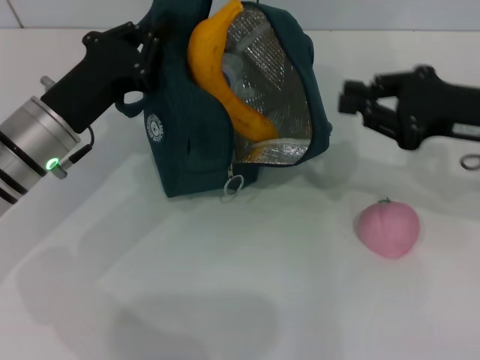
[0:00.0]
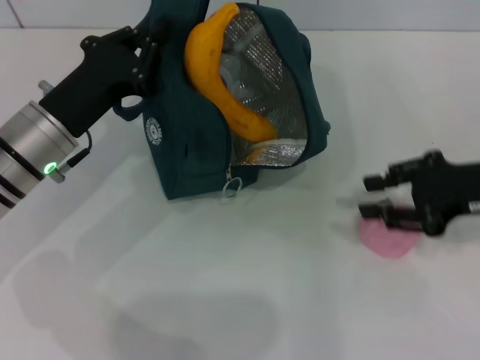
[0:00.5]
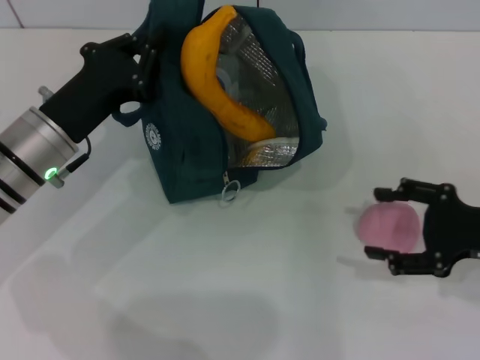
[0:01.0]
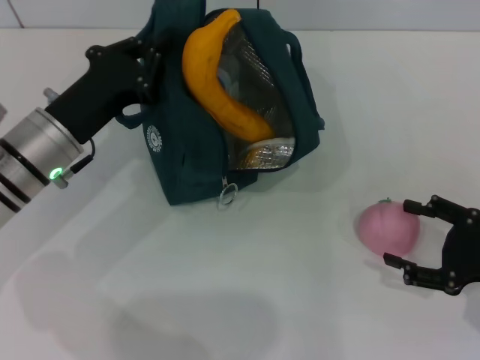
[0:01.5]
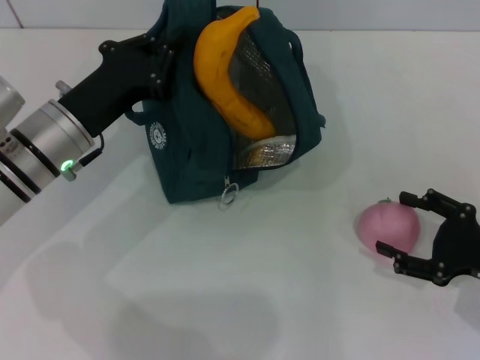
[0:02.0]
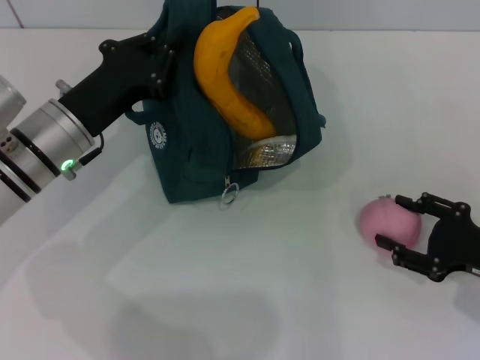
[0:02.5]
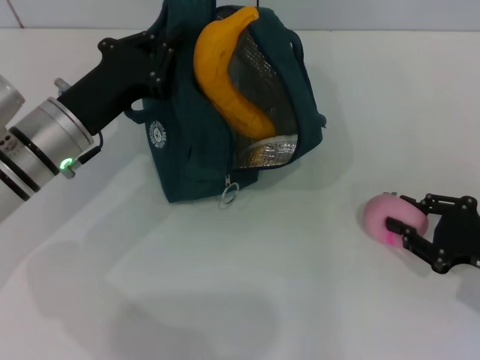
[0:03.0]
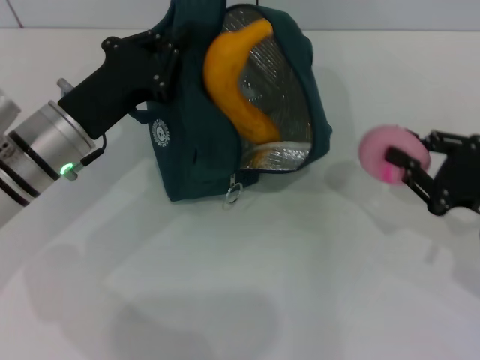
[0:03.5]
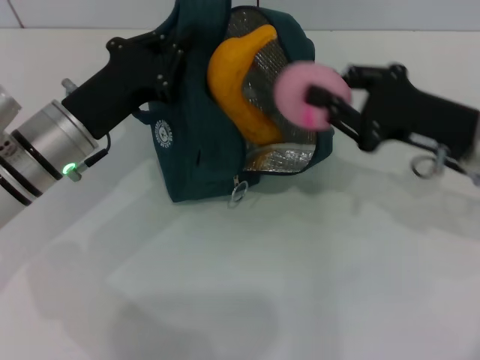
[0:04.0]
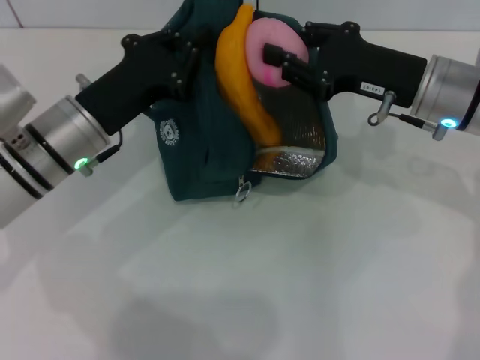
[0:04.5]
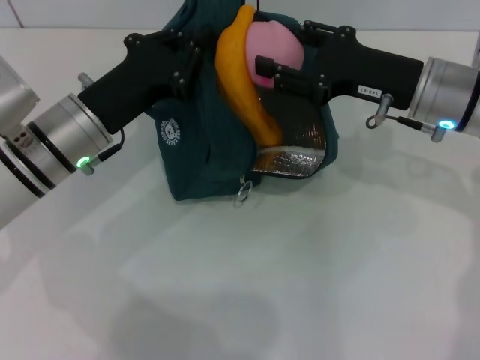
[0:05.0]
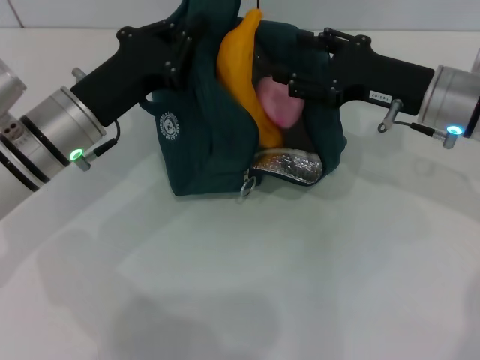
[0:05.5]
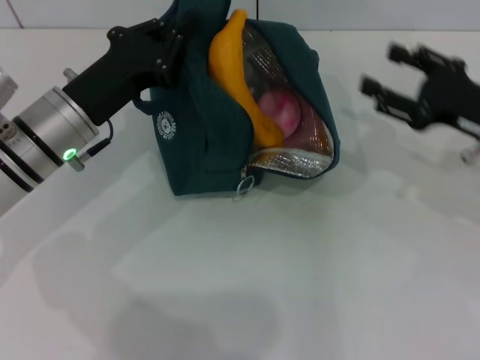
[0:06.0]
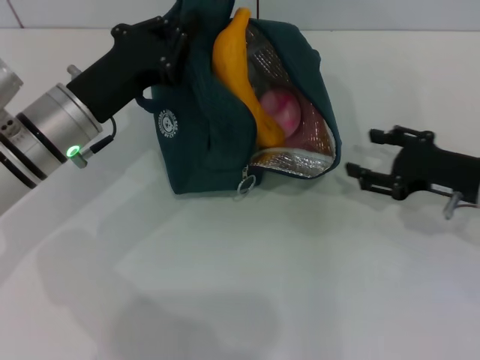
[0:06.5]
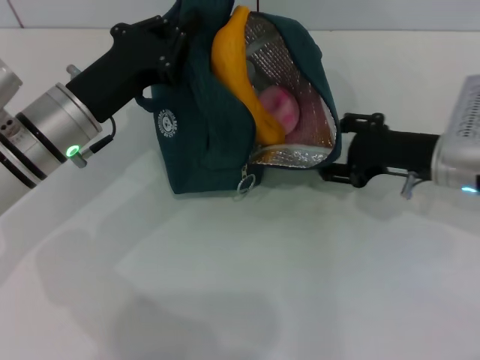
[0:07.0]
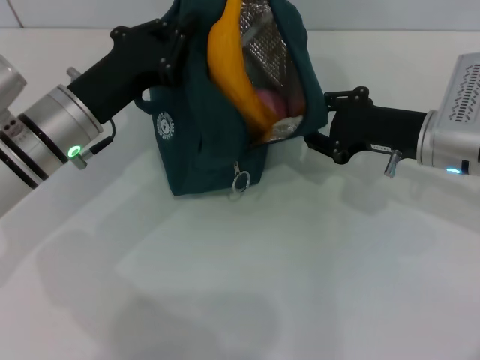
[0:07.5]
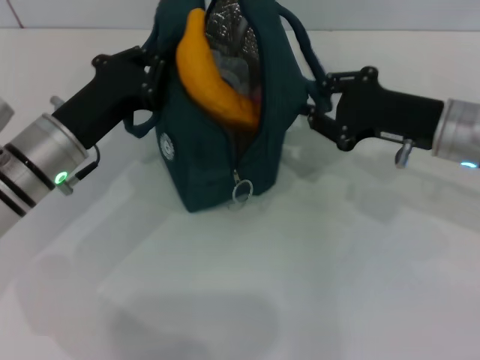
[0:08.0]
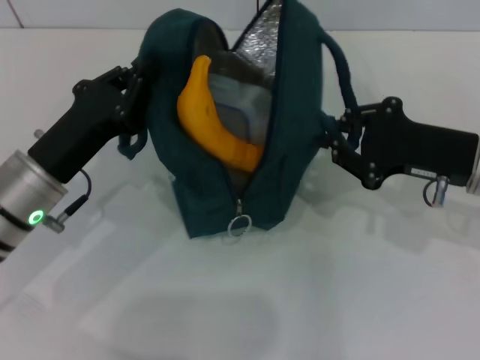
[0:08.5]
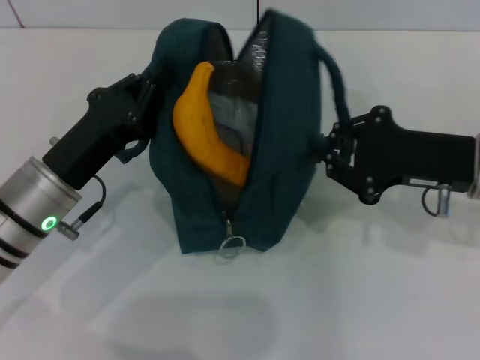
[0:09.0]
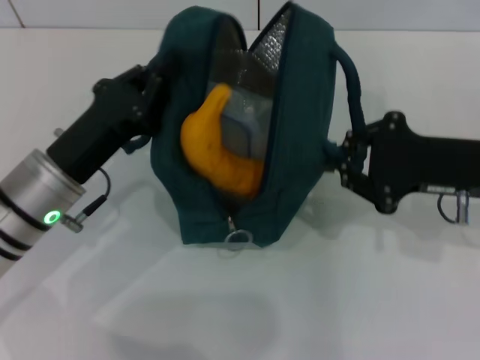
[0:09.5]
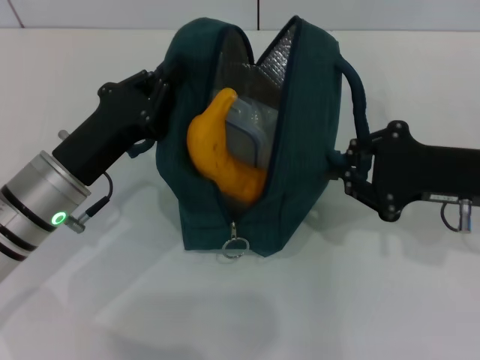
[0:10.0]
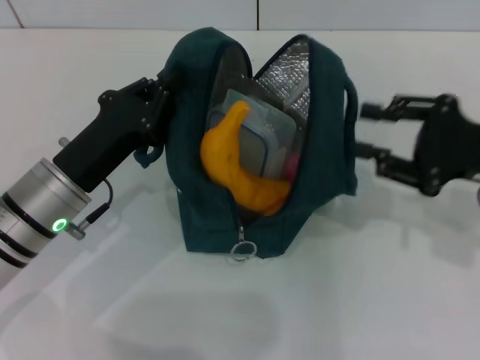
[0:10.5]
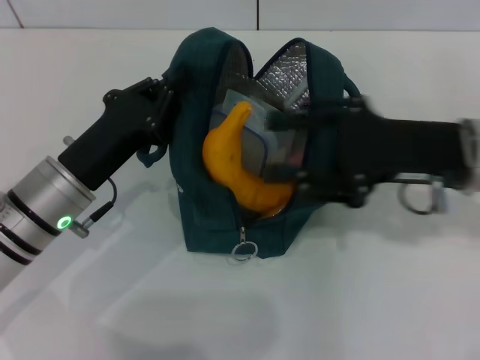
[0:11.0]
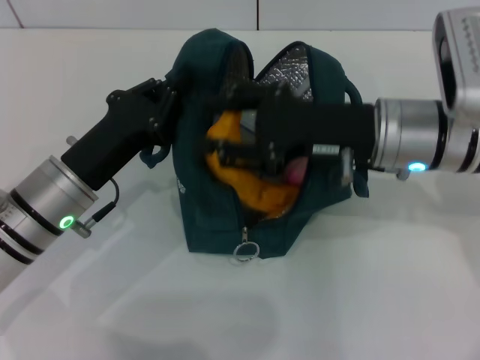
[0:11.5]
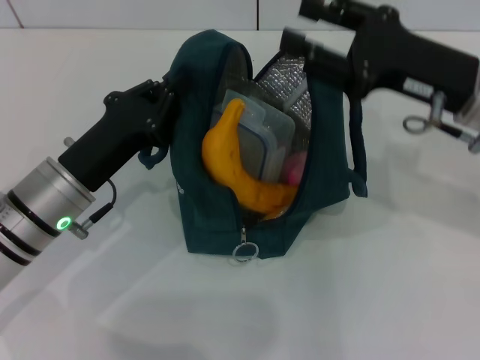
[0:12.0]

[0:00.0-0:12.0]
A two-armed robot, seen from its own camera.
Step, 0:00.0 to 0:03.0: Grab the peach with your right hand.
Step, 0:06.0 to 0:10.5: Hold the lunch bag with your right hand.
0:00.0 to 0:02.0: The right gripper goes about 15 cm downward, backward and to the right, and opens up.
0:02.0 to 0:04.0: The right gripper goes roughly 15 cm forward, upward and to the left, and closes its fingers.
0:04.0 to 0:06.0: The right gripper ends up roughly 5 cm from where it was, and opens up.
0:06.0 to 0:08.0: The right gripper travels to the left by some 5 cm, and closes up.
0:08.0 to 0:10.0: The right gripper travels backward by roughly 5 cm.
0:10.0 to 0:12.0: The right gripper moves about 10 cm to the left and comes back, and opens its fingers.

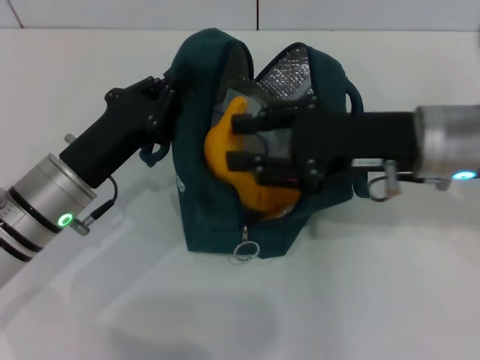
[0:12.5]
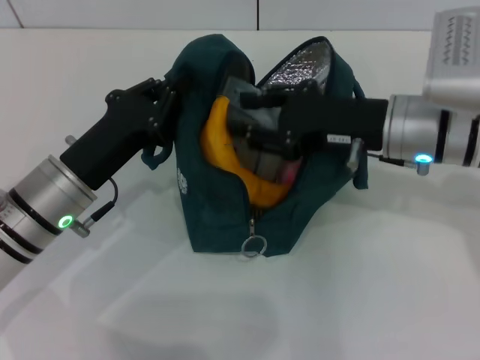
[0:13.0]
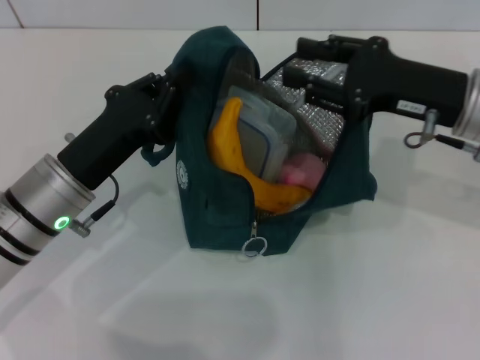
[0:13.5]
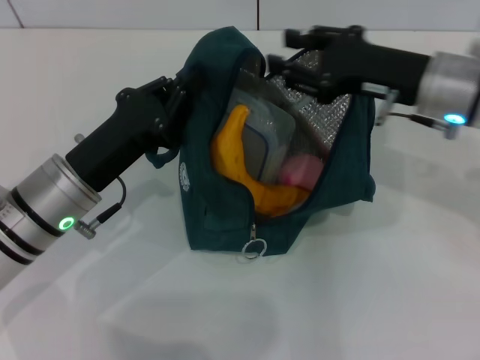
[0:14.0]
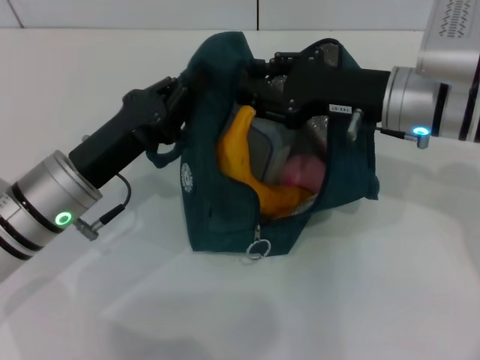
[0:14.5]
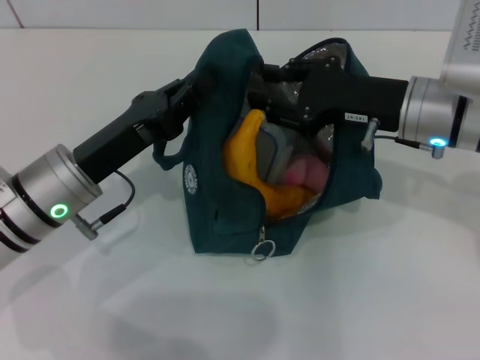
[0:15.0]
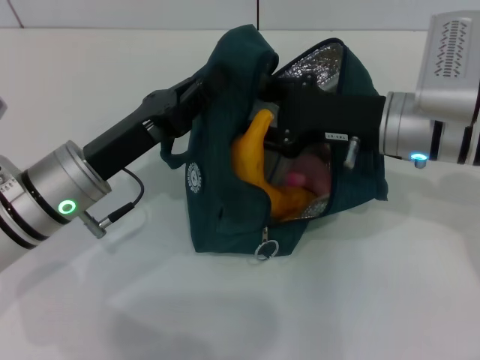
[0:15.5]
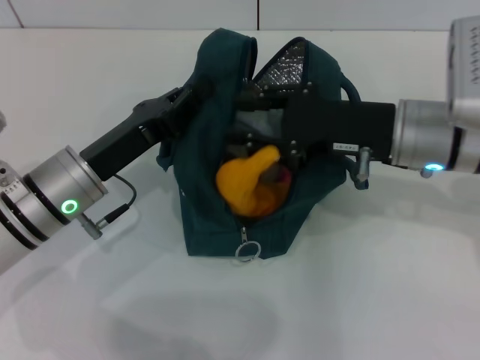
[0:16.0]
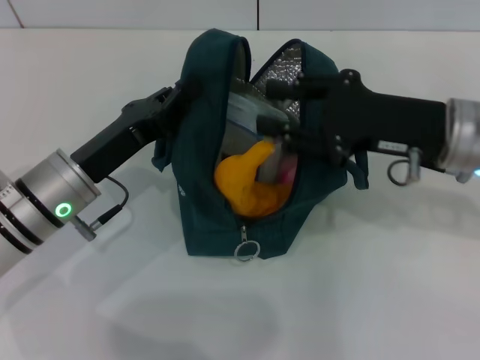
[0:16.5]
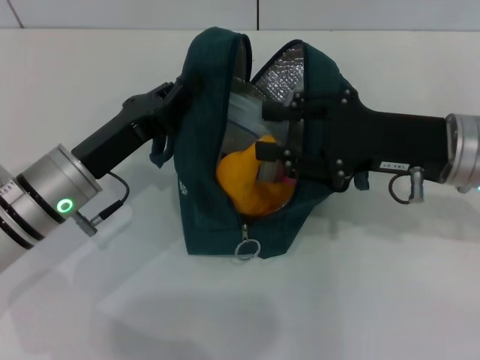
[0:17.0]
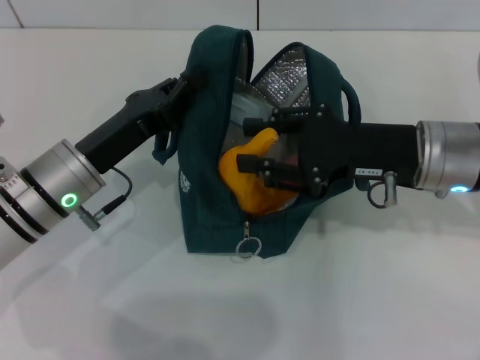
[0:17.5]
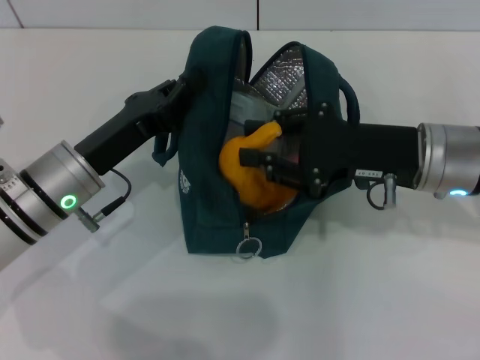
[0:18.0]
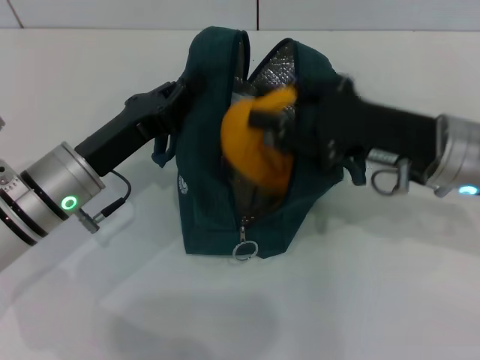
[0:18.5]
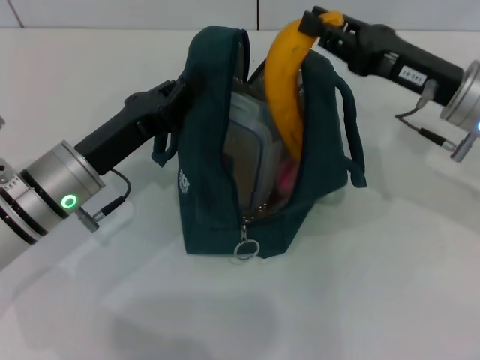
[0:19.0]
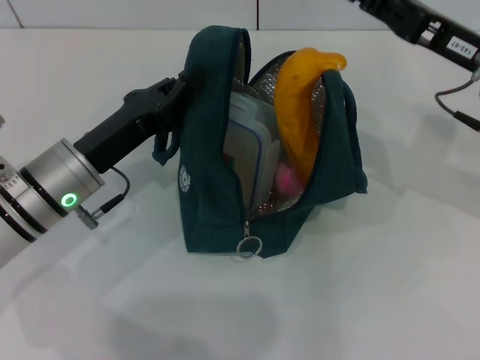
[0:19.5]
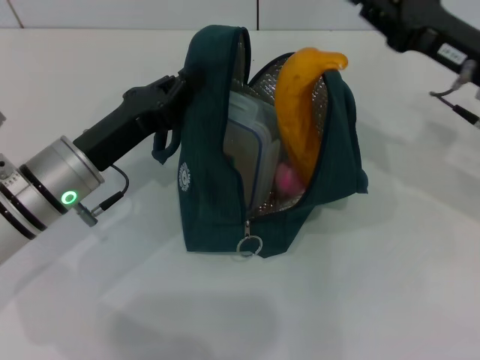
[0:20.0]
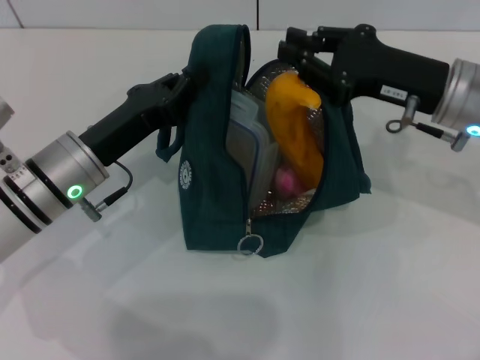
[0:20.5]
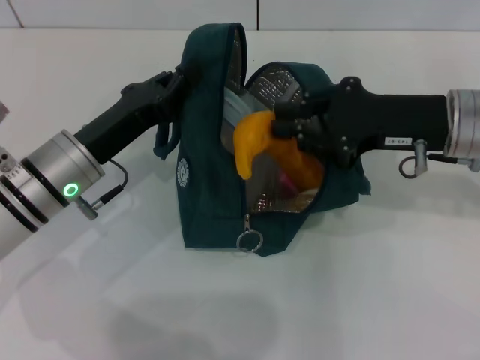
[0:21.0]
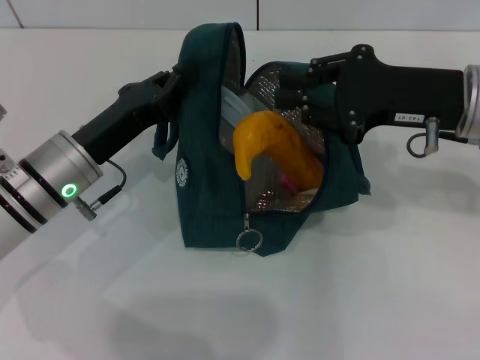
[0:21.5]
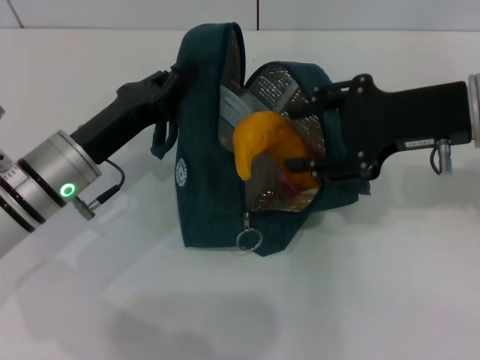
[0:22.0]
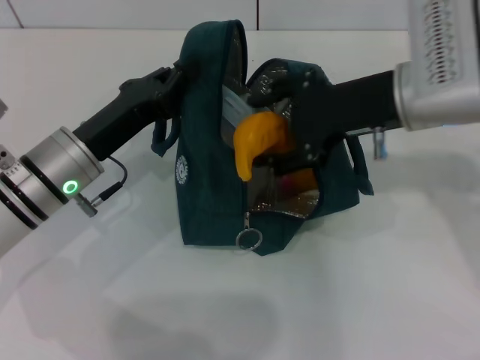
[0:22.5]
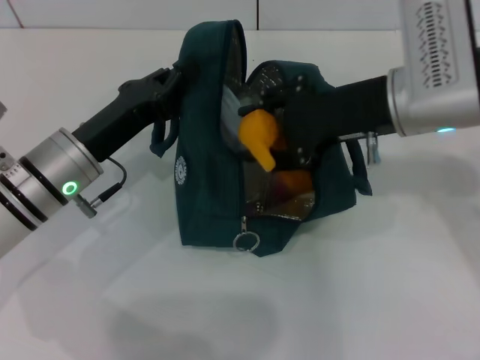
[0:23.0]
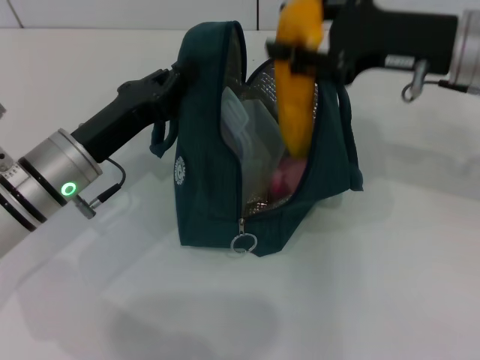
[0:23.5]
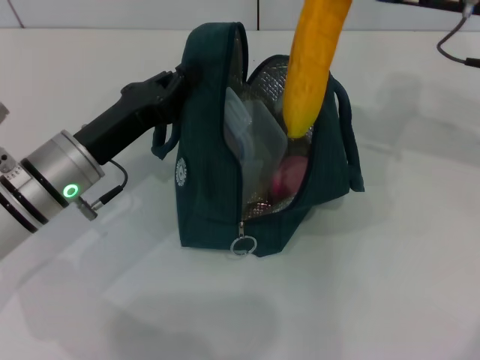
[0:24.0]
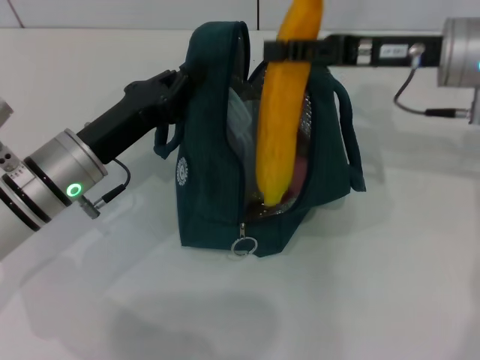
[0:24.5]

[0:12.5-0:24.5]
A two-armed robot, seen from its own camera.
0:12.5 to 0:14.5: The right gripper shifts by some 5 cm.
0:14.5 to 0:16.5: The right gripper changes place by approximately 5 cm.
0:16.5 to 0:18.5: The grippers stay close to where they were, moving slightly.
0:20.5 to 0:22.5: The right gripper shifts by some 5 cm, and opens its fingers.

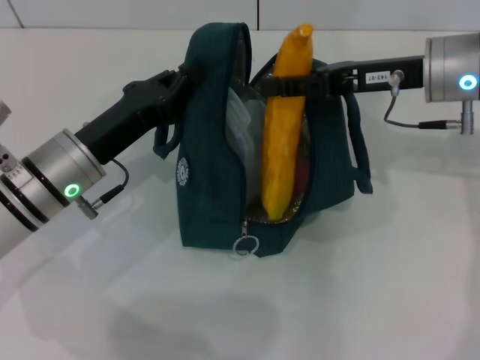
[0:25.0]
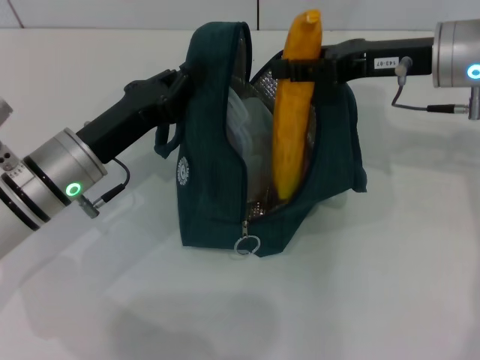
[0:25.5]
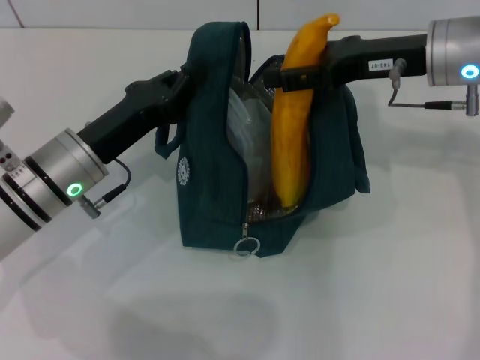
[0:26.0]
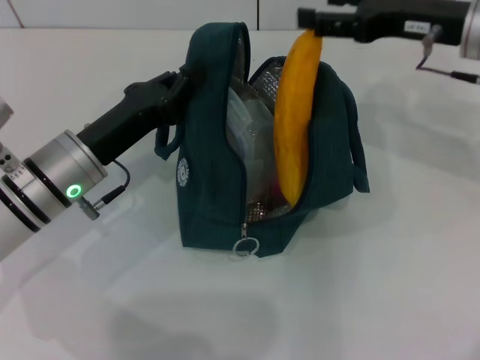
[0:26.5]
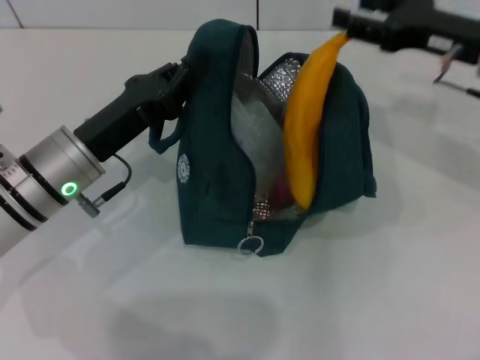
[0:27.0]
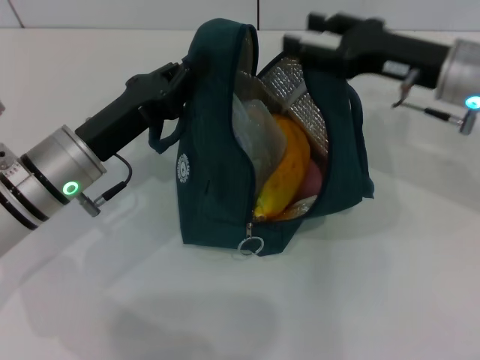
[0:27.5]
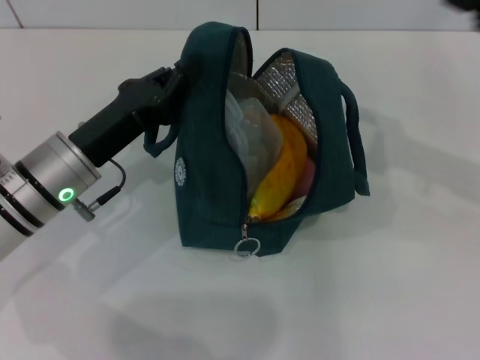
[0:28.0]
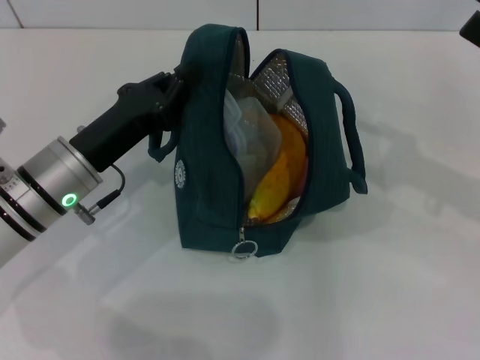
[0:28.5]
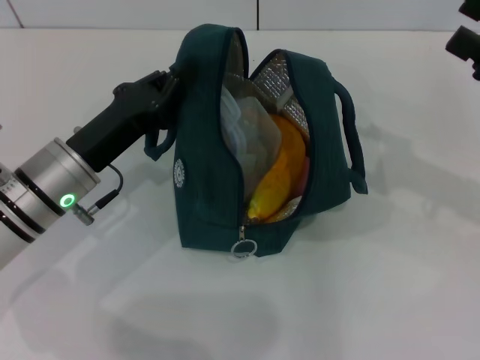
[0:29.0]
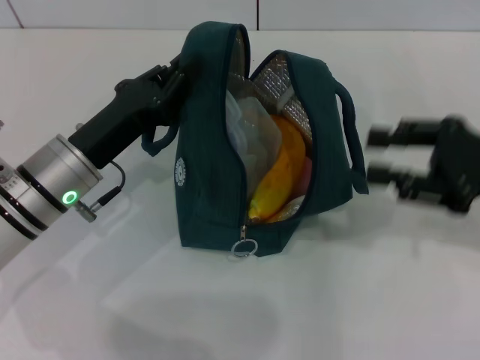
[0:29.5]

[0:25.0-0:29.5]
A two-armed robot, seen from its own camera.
0:25.0 to 0:27.0: The right gripper shifts roughly 5 cm to the right.
0:27.0 to 0:29.5: The right gripper shifts roughly 10 cm backward.
